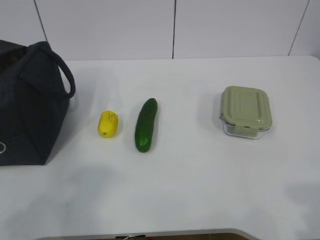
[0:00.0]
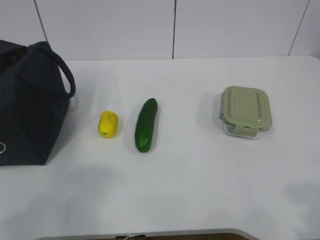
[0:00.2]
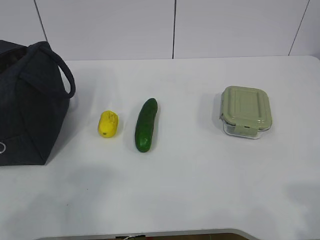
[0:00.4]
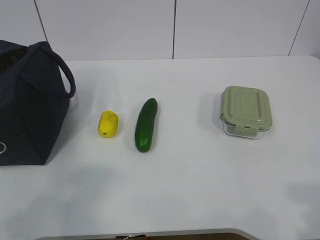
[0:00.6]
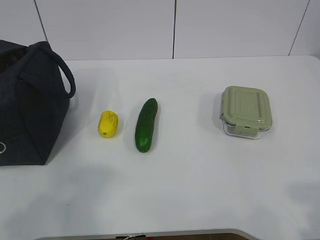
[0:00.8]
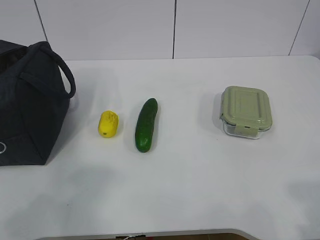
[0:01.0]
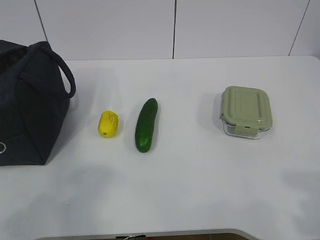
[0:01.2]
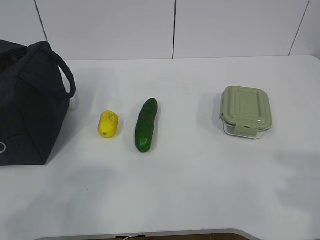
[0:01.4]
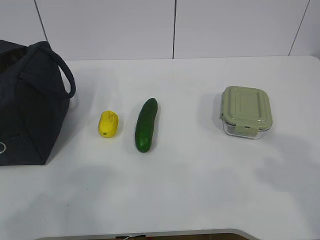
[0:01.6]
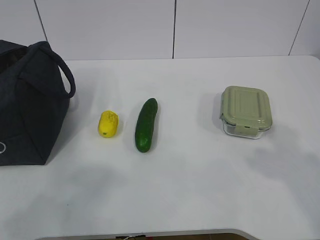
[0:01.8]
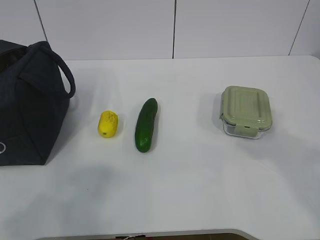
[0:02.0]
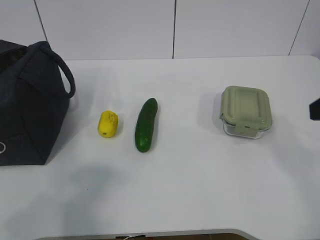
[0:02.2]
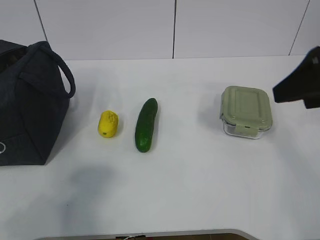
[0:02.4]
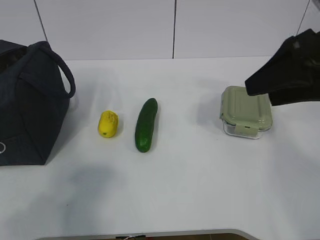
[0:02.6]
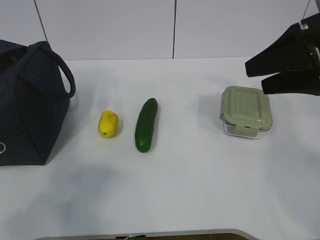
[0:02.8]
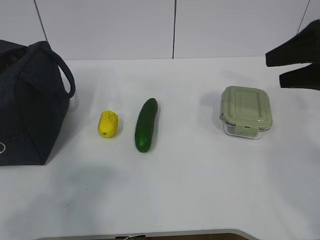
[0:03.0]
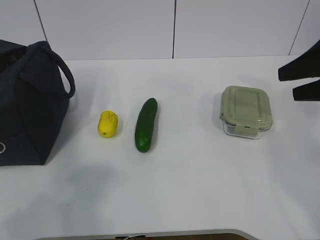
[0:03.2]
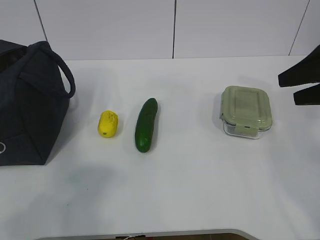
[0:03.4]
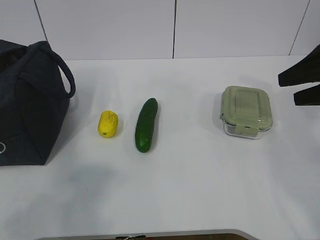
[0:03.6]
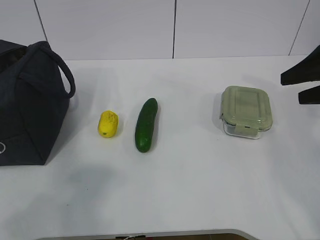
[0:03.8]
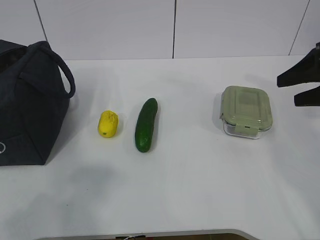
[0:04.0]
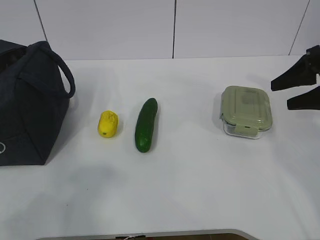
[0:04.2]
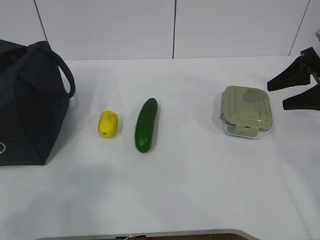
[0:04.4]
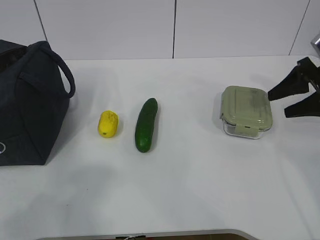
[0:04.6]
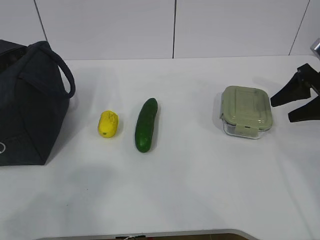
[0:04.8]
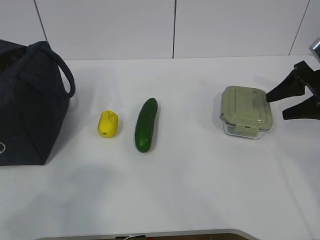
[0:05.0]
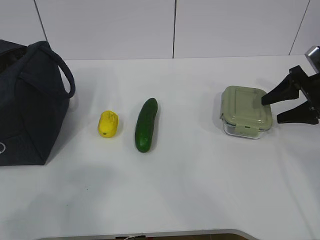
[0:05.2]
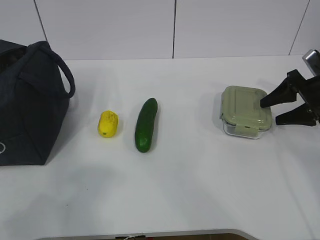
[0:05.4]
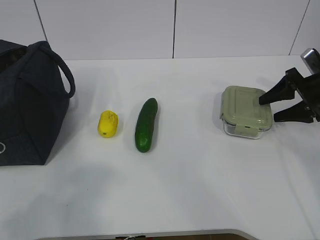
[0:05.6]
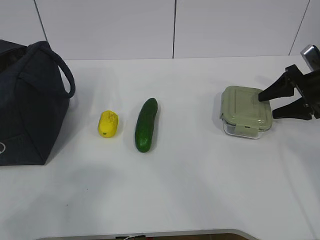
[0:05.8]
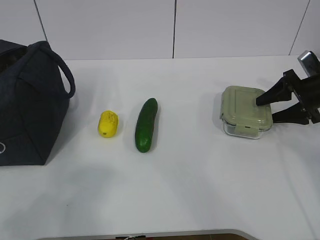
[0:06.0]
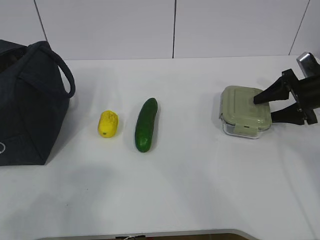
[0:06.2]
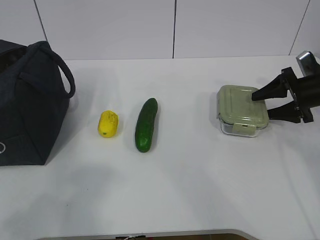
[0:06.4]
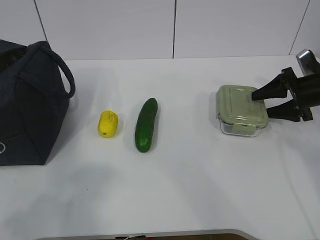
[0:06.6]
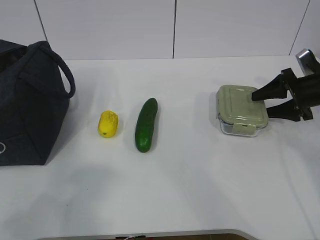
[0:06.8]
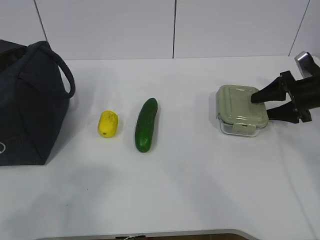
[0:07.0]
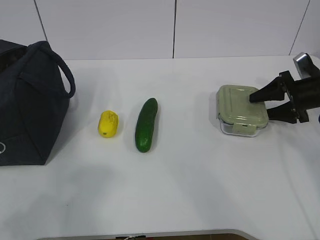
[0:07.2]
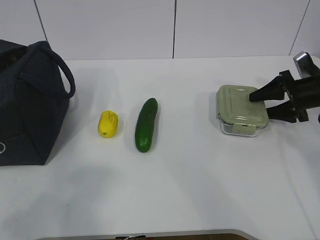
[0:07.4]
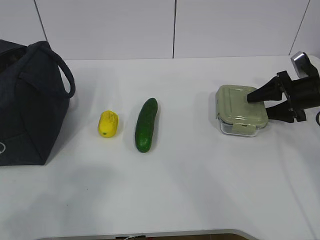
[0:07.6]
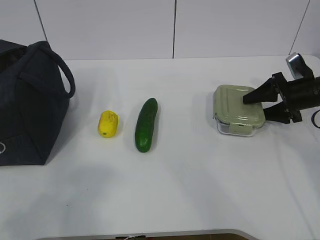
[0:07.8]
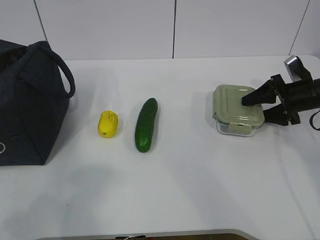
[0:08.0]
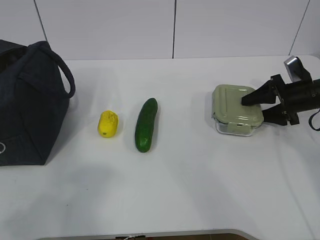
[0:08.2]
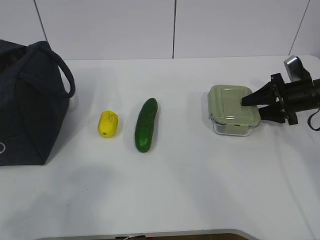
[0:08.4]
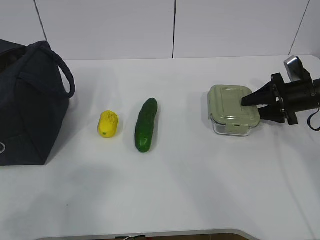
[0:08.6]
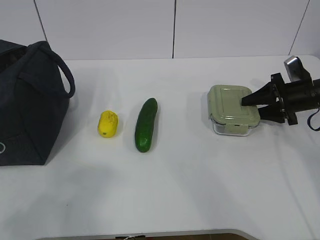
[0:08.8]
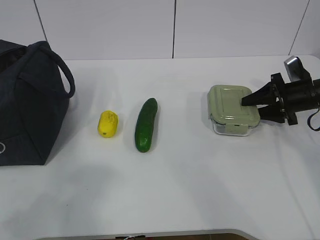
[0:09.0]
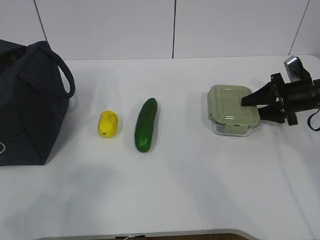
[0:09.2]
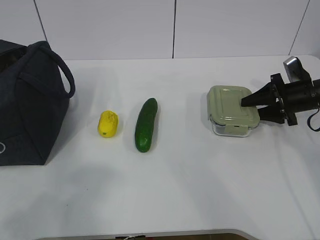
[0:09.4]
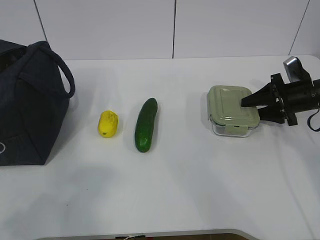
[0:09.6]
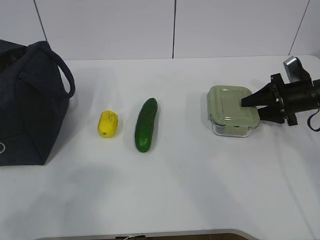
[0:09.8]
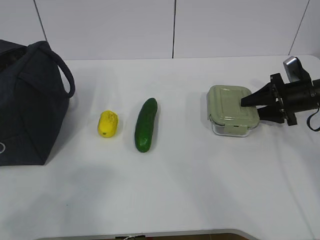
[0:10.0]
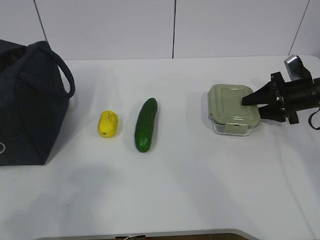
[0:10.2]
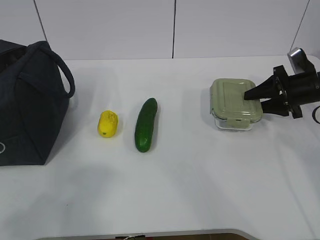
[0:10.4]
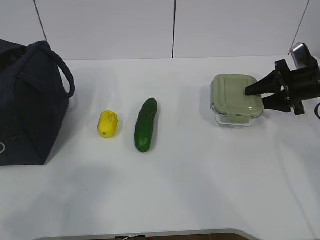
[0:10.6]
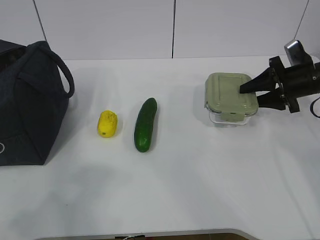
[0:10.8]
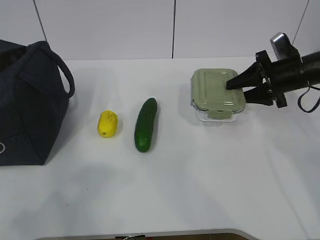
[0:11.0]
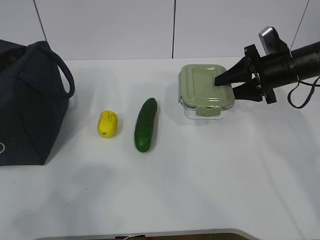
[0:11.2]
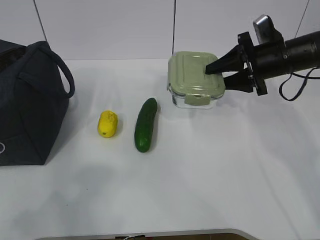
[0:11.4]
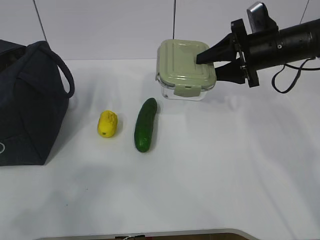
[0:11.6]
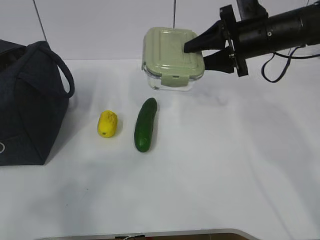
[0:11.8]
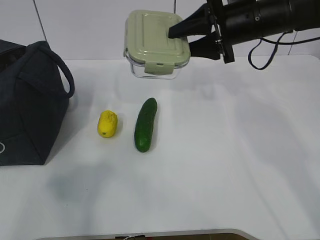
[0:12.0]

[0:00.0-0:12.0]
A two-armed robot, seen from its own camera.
Step, 0:00.0 to 0:08.2: Grab the lunch box with your right hand.
0:01.6 to 0:03.0: The right gripper is displaced forward by roughly 25 cm.
0:03.0 to 0:04.4: The right gripper travels downward and forward by about 10 cm.
0:04.4 to 0:06.0: The right gripper is displaced downward by approximately 5 cm.
0:06.0 to 0:10.4: The grippers stay close to where they were, moving slightly.
0:10.4 to 0:12.0: The right gripper moves to the left and upward, roughly 20 cm; the left gripper changes place by about 5 cm.

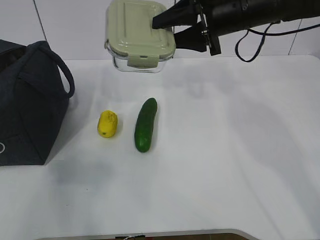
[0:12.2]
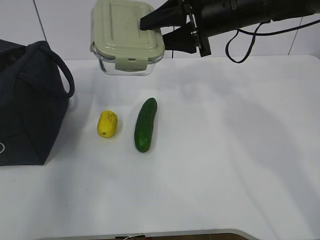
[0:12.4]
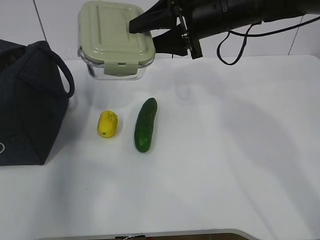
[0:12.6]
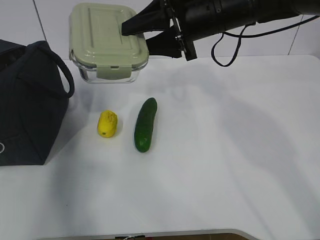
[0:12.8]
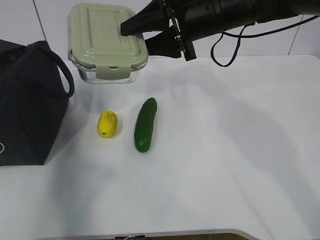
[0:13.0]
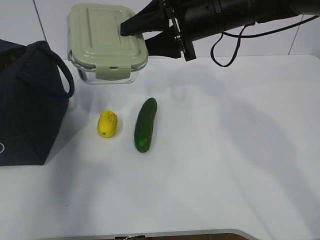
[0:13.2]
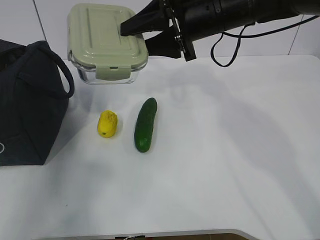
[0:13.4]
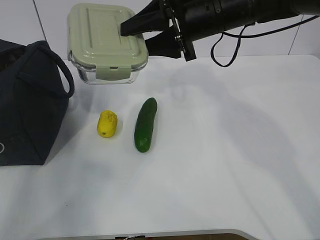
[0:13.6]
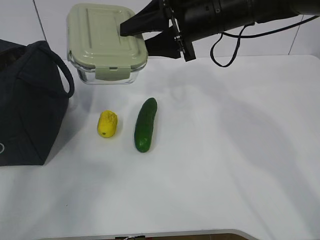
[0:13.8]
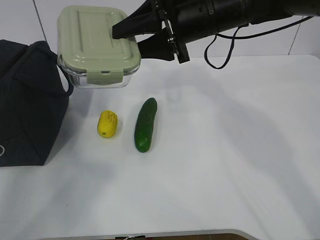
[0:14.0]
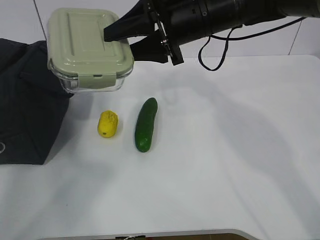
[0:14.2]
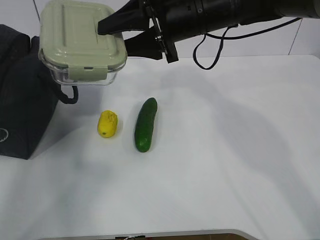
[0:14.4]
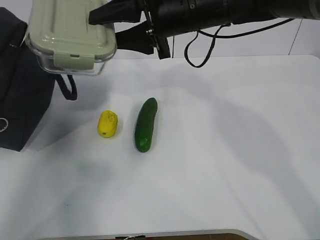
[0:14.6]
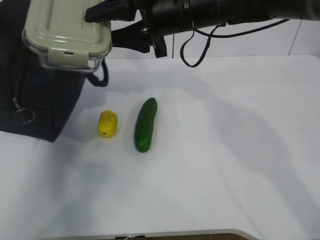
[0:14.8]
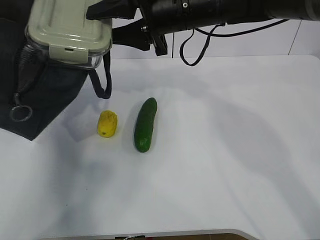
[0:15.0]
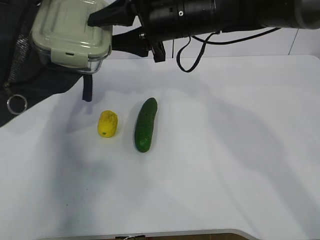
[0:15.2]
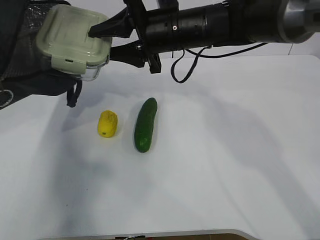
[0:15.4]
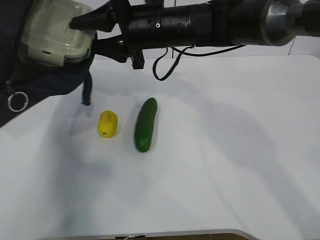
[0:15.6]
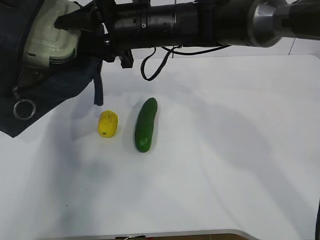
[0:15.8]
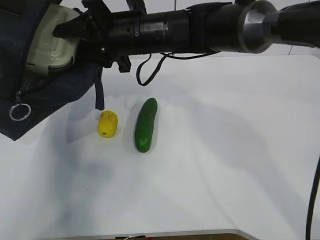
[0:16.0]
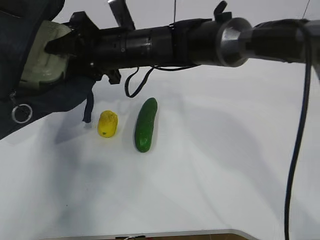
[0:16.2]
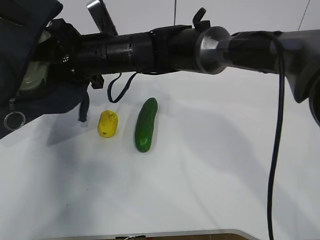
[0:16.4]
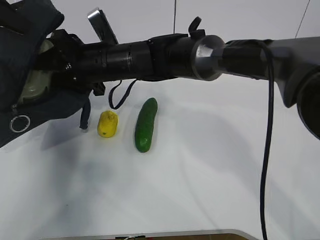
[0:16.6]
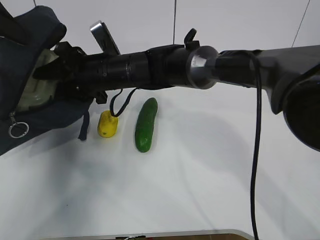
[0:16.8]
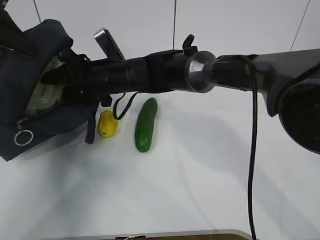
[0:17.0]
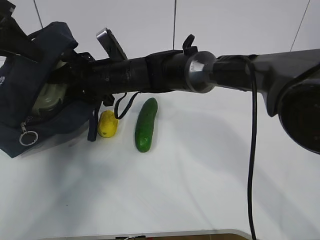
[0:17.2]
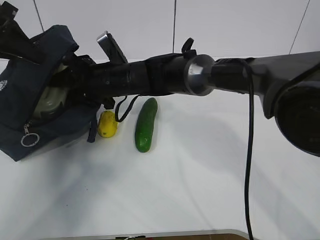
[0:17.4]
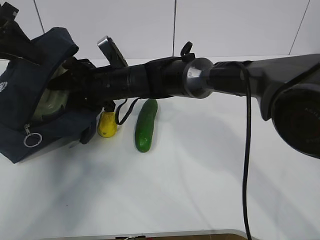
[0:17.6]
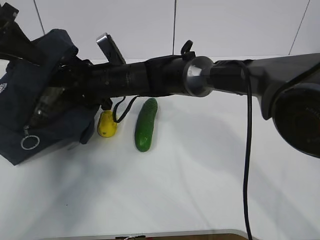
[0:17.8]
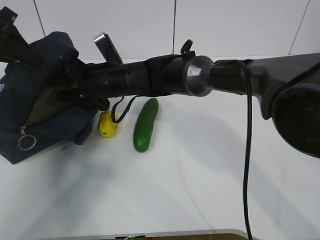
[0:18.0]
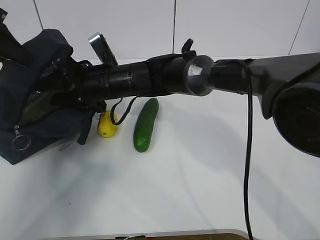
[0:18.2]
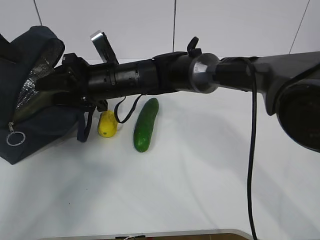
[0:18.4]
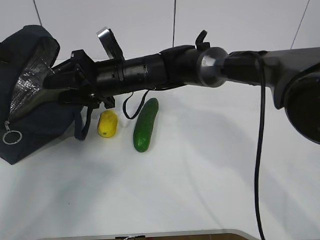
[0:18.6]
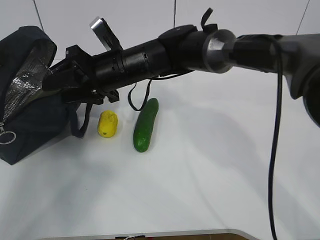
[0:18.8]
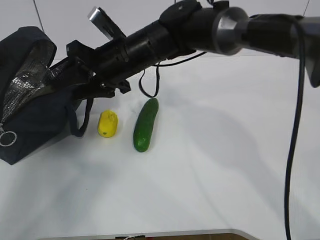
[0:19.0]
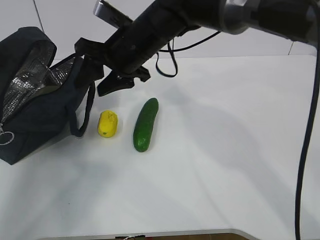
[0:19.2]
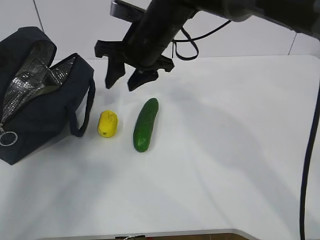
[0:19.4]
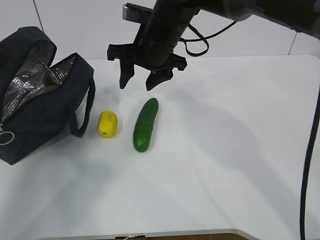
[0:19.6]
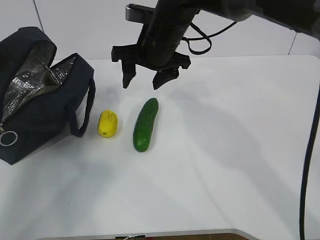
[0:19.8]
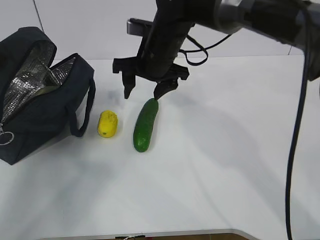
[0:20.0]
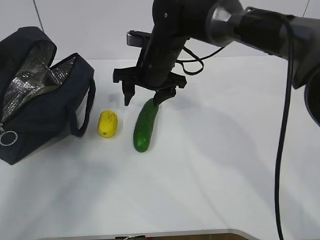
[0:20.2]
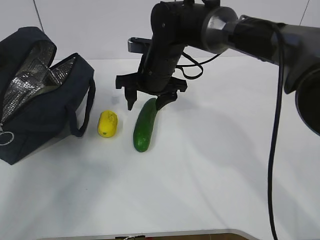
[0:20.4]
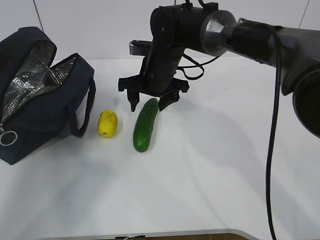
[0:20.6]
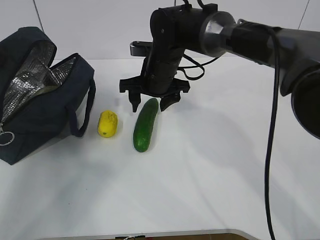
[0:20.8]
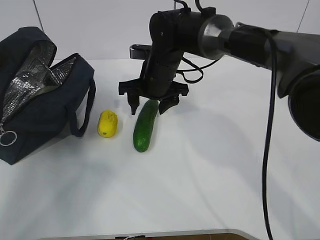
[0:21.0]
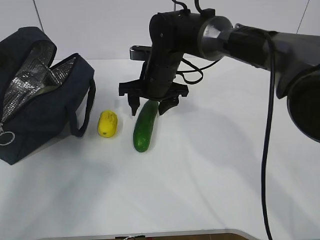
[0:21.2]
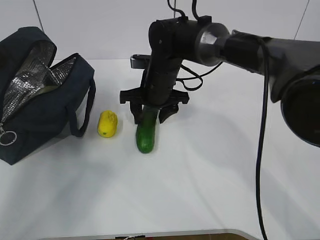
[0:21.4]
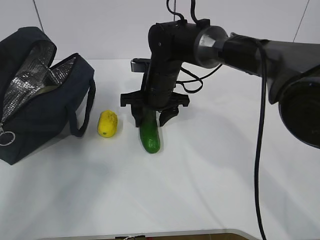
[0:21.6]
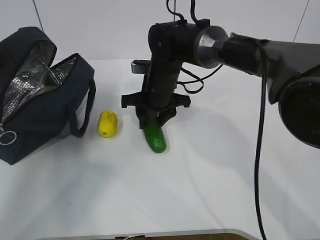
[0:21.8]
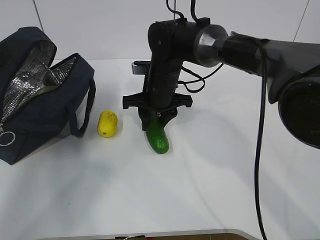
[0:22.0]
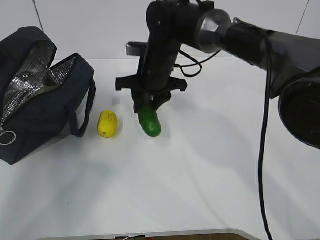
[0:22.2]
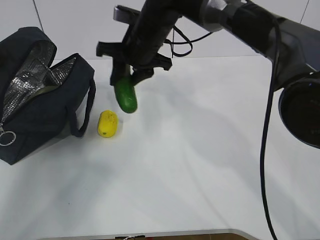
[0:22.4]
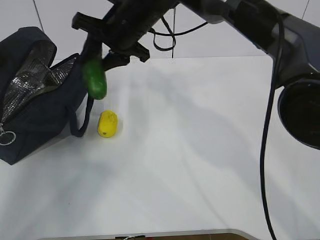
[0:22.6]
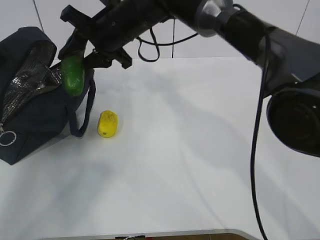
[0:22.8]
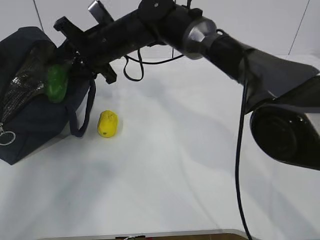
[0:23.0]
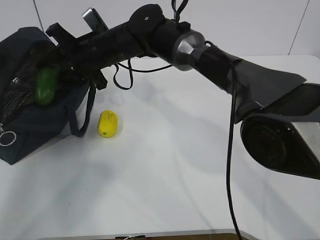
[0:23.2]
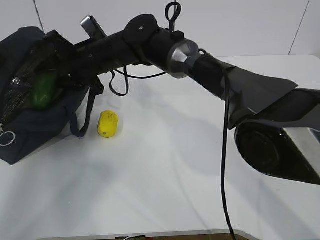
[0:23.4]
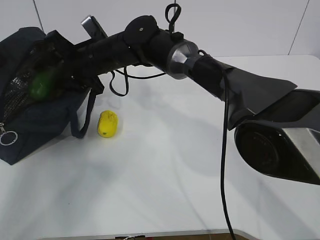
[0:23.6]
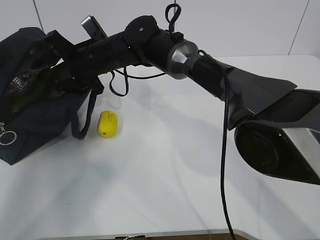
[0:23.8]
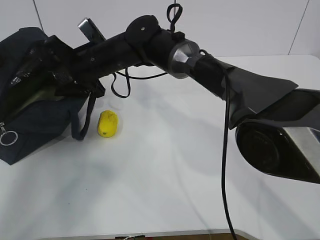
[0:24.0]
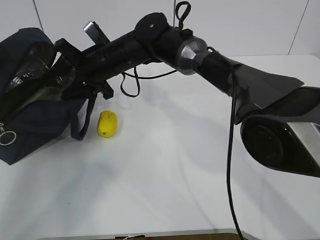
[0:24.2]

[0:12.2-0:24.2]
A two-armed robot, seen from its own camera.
Step, 0:15.2 to 0:18.2: Grab the cucumber with your right hand.
Step, 0:18.4 to 0:20.0: Place it into the bag with your right hand.
Step, 0:20.2 to 0:22.6: Grab the lemon with your right hand.
0:12.2 to 0:13.8: The left gripper travels forward by some 30 cm. The right gripper shifts by approximately 5 cm.
0:13.8 to 0:15.2: The left gripper moves to the right, upward and backward, about 15 cm, and closes its fingers.
0:15.2 to 0:16.6: The left gripper shifts by roughly 5 cm; the right gripper shifts roughly 15 cm to the left and downward.
0:16.6 to 0:18.2: The left gripper is displaced downward by approximately 5 cm.
0:18.2 to 0:19.8: The right gripper is displaced to the right and upward by about 10 cm.
0:19.8 to 0:21.2: The right gripper goes some 10 cm downward.
0:21.2 to 0:22.6: The right gripper travels upward by about 10 cm, and closes up.
0:22.6 to 0:24.2: The right gripper travels downward by some 5 cm.
